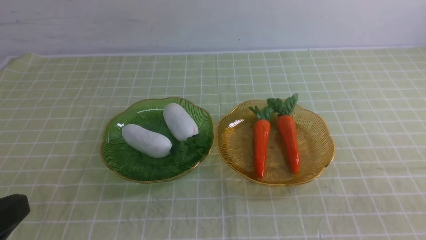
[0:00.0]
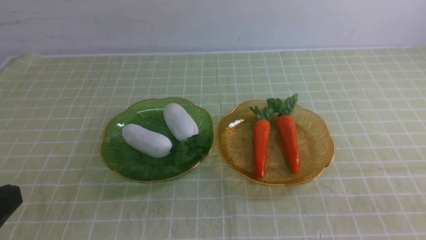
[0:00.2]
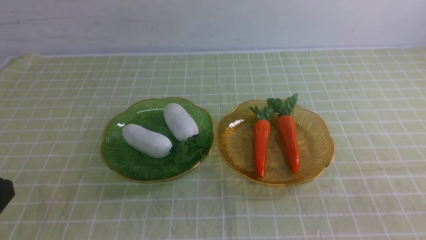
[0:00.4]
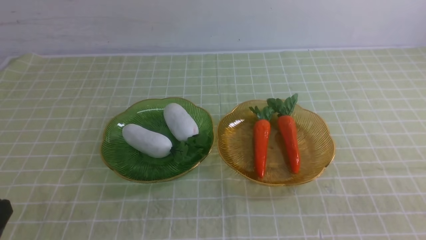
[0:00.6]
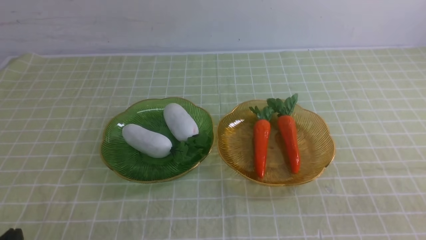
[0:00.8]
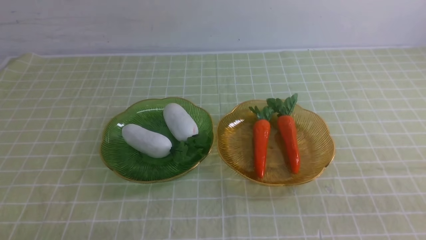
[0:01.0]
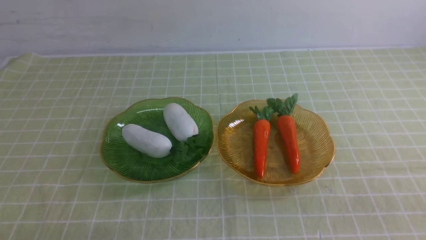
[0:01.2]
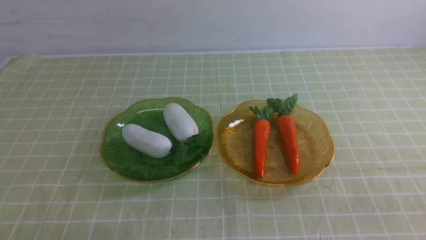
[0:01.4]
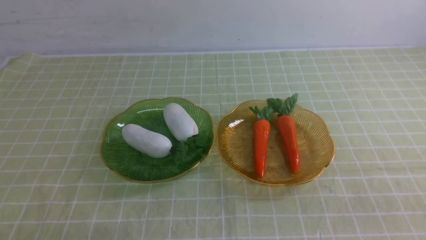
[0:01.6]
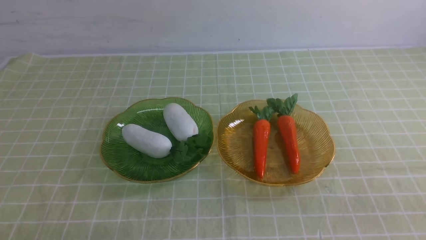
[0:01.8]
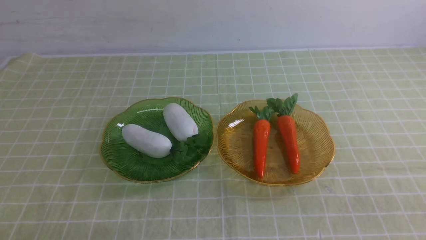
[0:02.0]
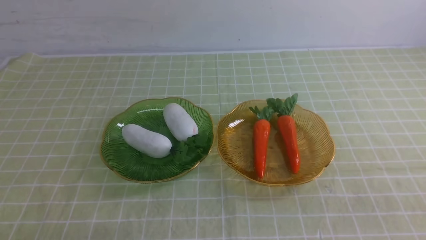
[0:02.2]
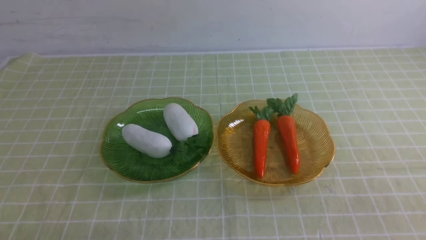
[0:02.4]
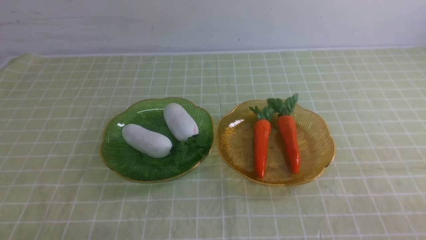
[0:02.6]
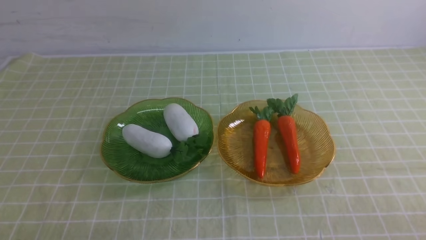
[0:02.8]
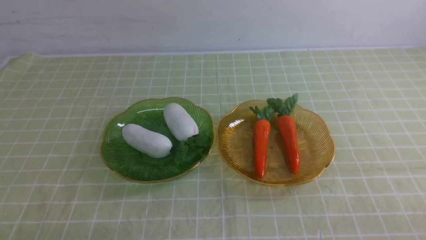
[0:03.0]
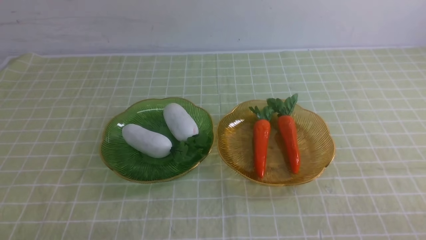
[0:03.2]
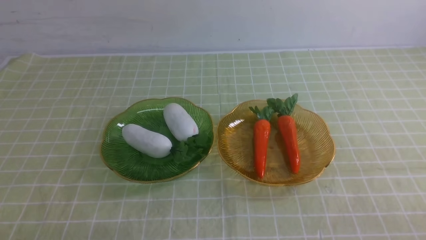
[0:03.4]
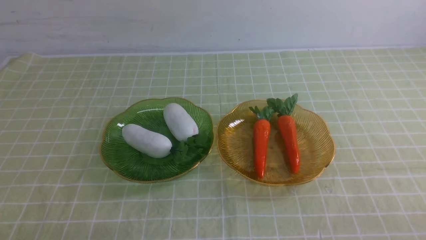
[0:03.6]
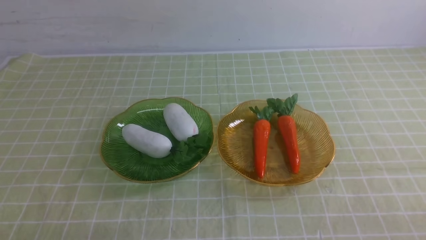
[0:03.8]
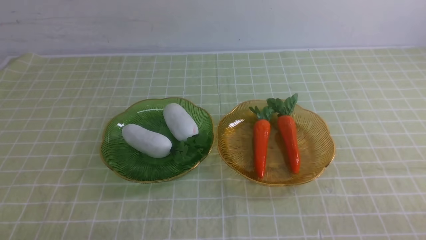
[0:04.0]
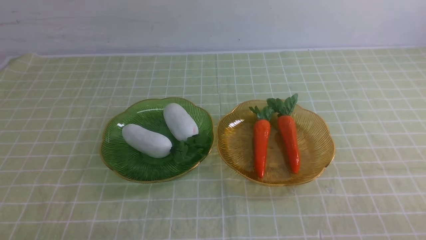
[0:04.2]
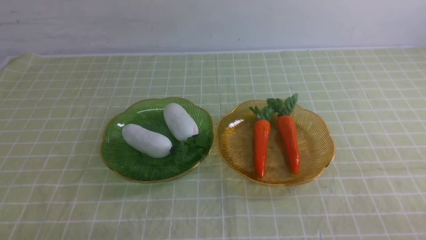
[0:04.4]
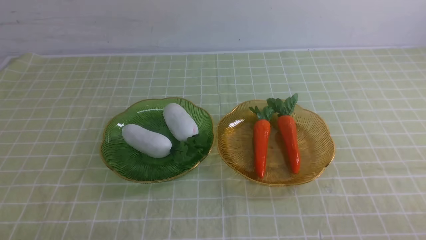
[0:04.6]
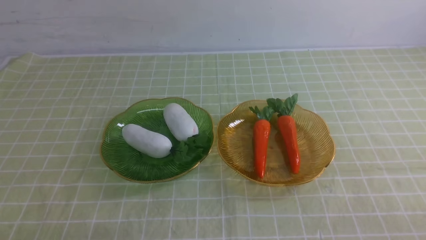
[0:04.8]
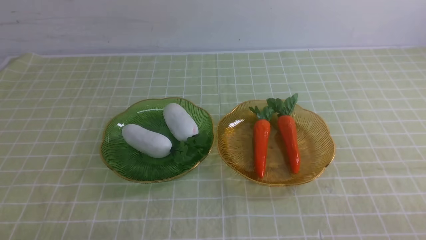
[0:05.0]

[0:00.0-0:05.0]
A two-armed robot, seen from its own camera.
0:00.0 to 0:01.6: The left gripper moves downward, approximately 15 cm.
0:03.4 to 0:05.0: Neither gripper changes place.
